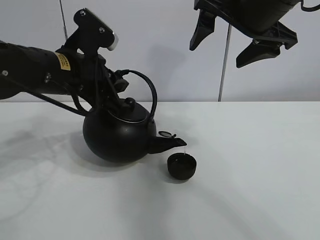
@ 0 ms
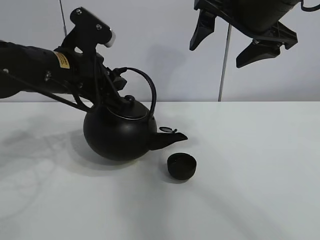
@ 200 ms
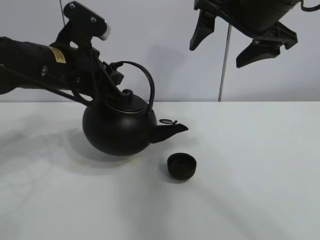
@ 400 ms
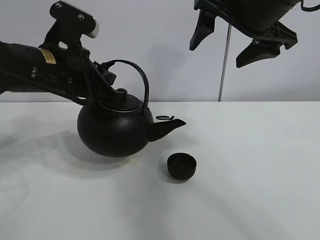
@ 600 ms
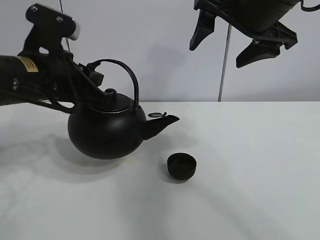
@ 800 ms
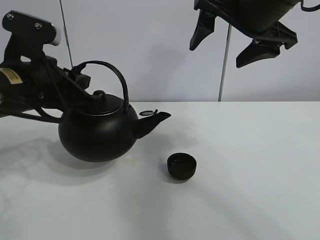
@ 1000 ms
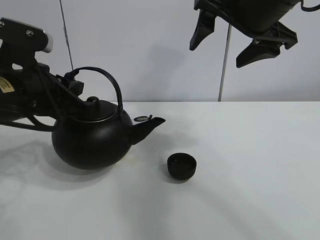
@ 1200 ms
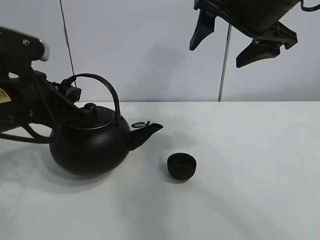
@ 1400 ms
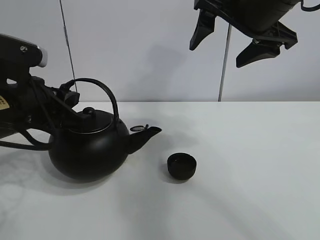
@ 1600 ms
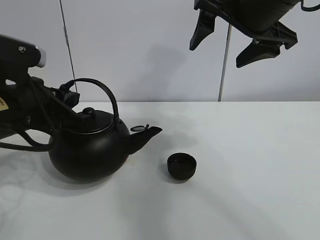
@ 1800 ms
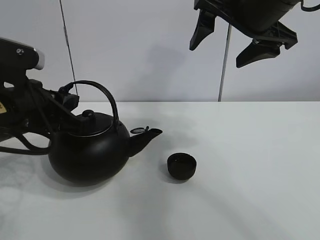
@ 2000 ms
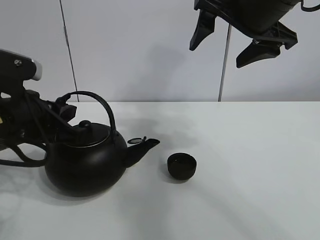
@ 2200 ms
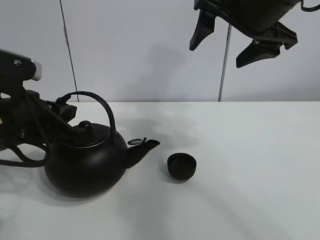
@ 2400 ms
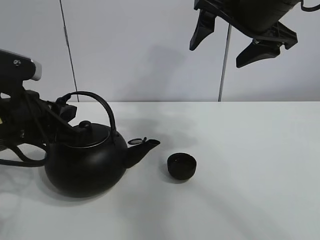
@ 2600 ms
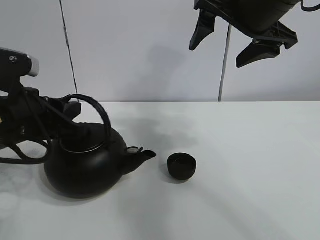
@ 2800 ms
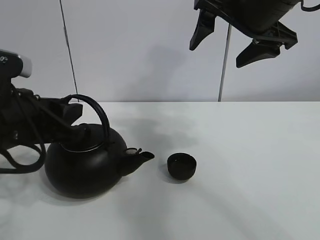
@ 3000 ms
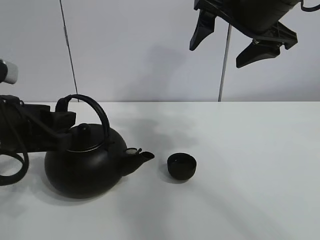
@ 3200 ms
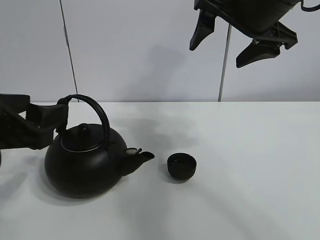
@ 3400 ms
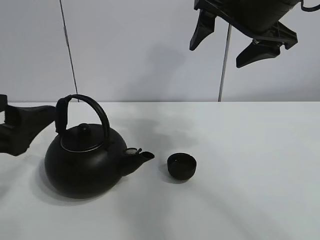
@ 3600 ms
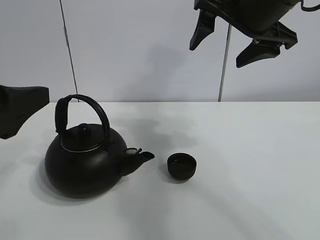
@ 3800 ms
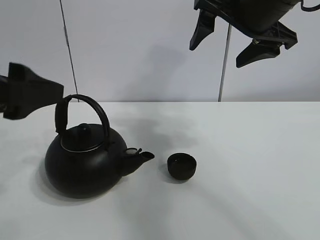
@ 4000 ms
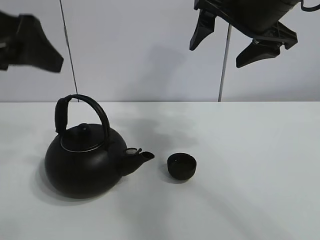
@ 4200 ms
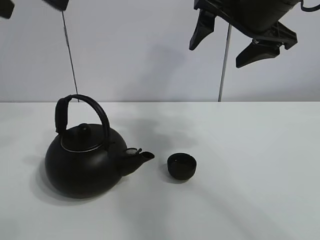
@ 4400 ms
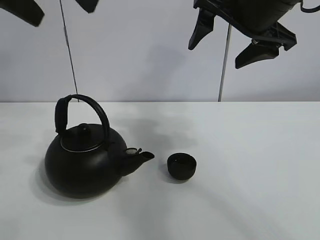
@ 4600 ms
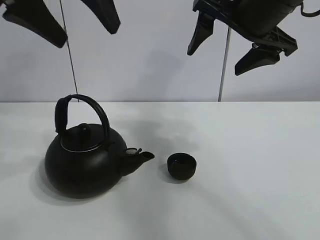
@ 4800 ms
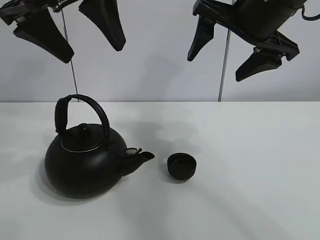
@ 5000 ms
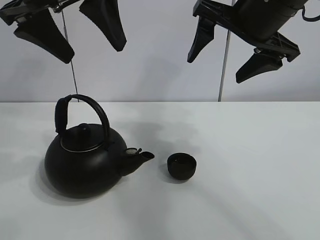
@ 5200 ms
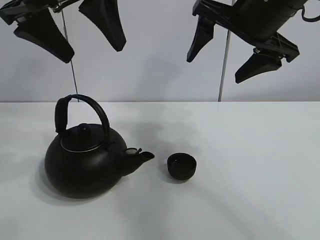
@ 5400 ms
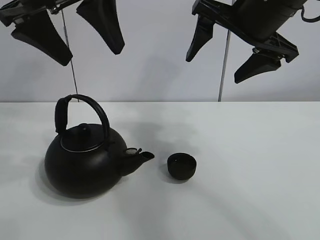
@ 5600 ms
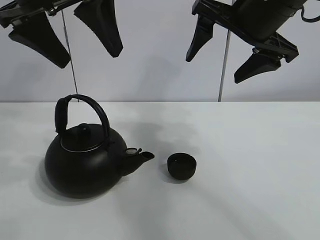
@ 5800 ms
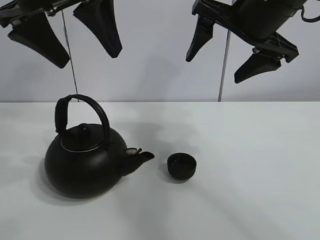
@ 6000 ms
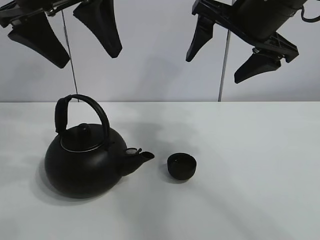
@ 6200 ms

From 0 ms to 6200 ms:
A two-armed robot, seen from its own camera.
Task of the whole recording: pour tea into the teacup.
From 0 ms to 1600 ms: The left gripper travels backward and to the left by approximately 10 cm.
From 1600 ms to 3200 ms: The left gripper opens up.
From 3200 ms to 4600 ms: The left gripper goes some 25 cm upward, and opens.
From 4600 ms to 6200 ms: The left gripper shifts by approximately 5 cm.
